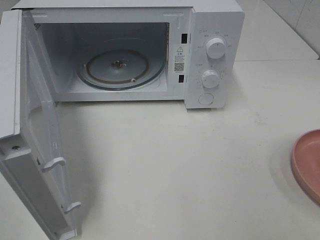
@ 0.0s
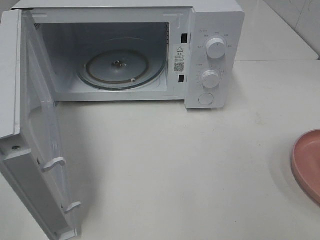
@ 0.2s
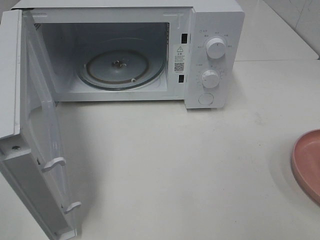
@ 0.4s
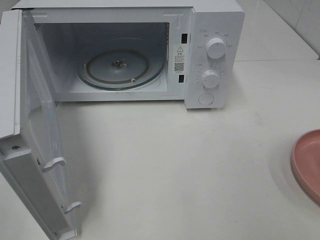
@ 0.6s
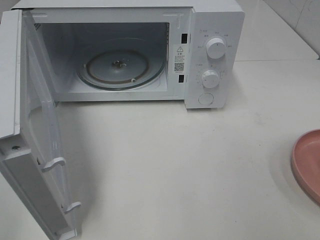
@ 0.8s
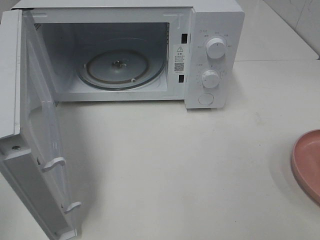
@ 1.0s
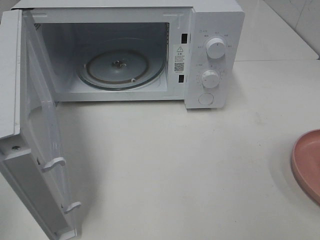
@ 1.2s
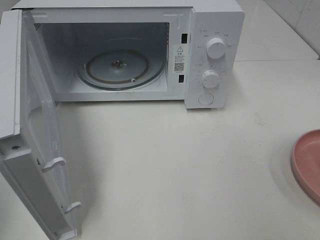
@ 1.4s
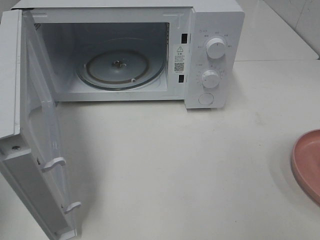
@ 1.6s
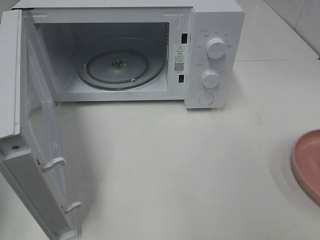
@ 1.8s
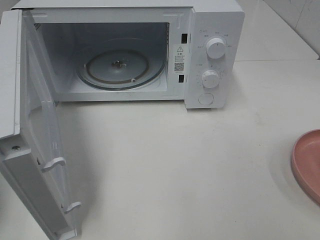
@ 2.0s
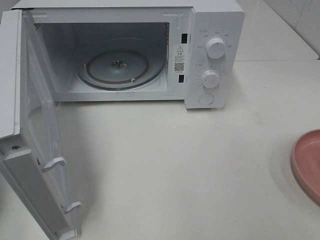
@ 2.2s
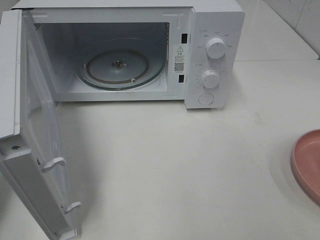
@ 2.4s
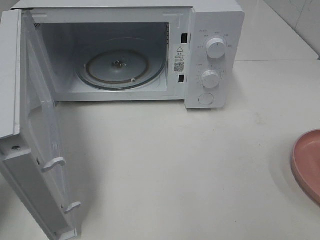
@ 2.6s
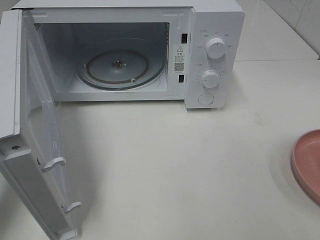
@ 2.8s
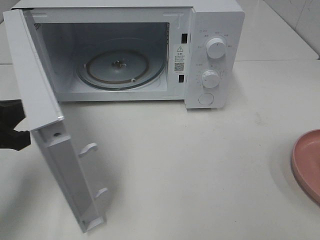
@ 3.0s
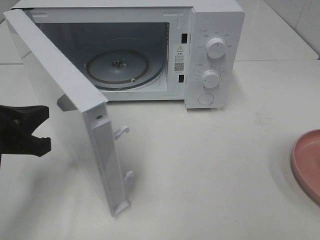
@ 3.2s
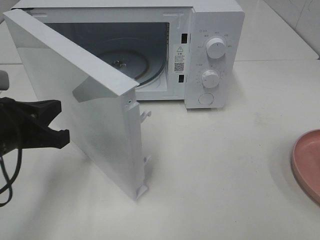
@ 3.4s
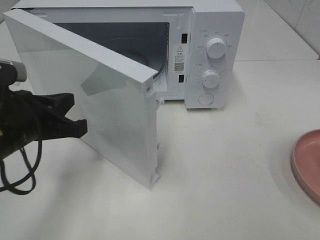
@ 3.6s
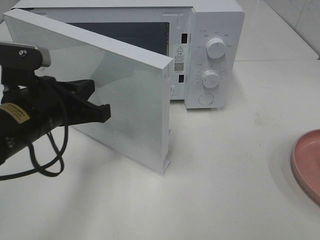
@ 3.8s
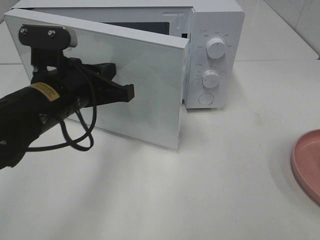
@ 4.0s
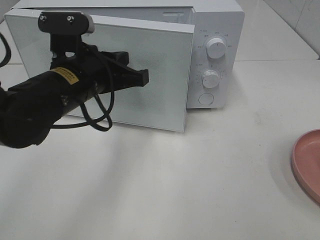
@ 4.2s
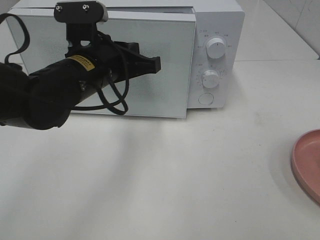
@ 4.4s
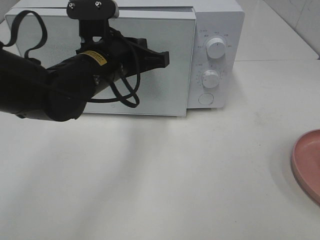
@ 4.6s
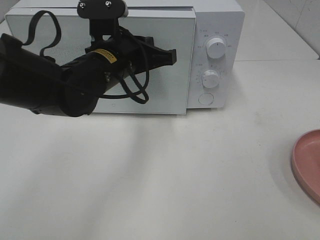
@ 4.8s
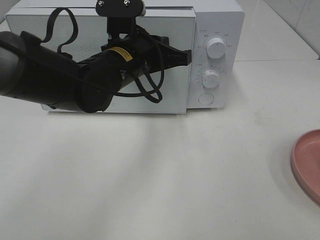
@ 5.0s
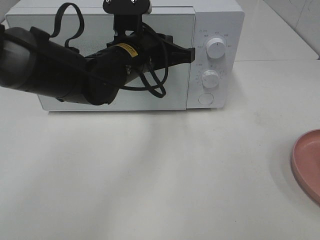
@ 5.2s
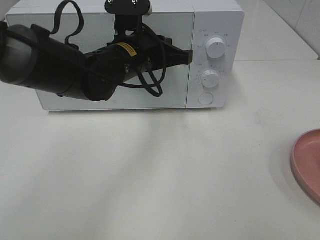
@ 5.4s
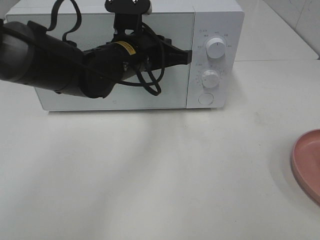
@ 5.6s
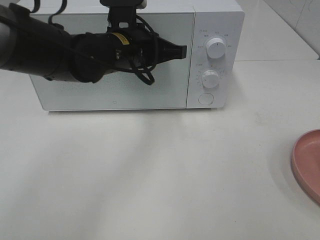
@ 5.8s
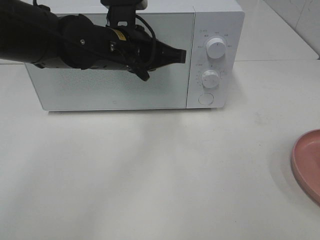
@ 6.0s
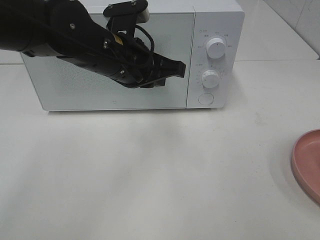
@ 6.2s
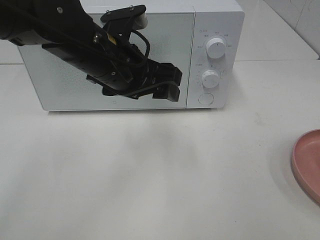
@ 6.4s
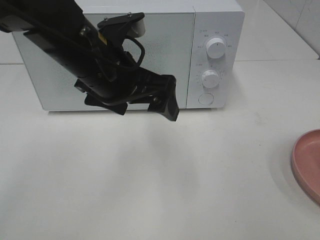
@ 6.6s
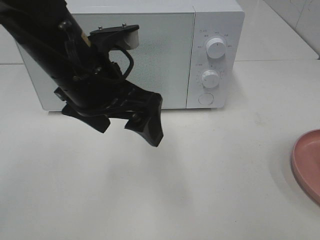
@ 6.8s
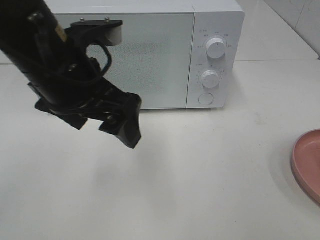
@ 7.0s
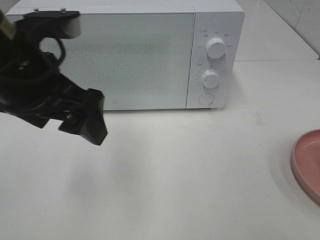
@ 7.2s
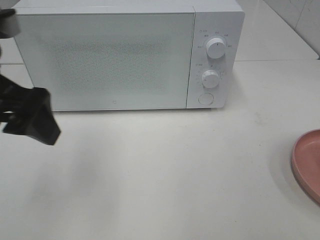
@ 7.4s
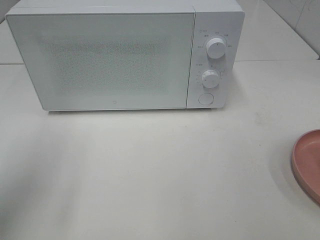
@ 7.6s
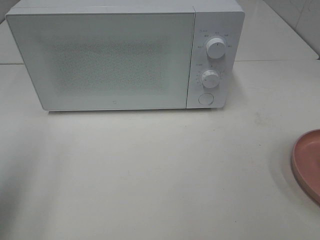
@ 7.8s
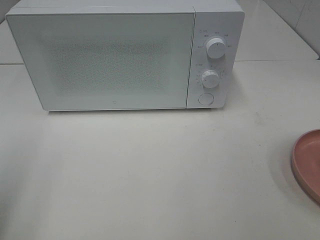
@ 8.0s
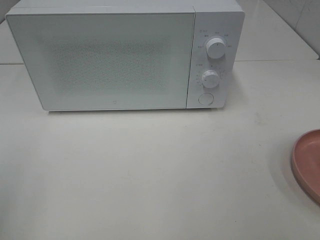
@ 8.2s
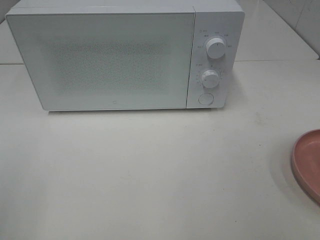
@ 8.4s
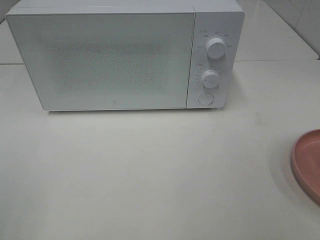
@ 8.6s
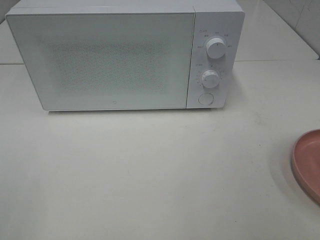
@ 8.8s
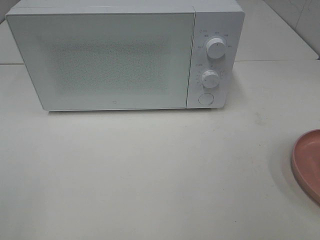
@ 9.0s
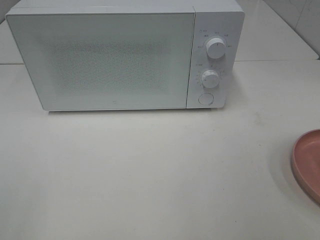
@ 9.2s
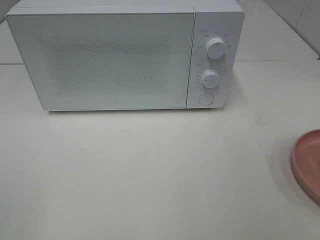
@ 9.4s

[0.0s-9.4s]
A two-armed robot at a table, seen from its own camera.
Task of the whole recording: Heat the burger.
Step, 0.0s to 5.8s: Left hand: close the microwave door.
1.6s to 3.2s: The left gripper moves downward, to the right and forward, roughly 20 cm.
3.2s to 4.8s: The left gripper is displaced to the right and forward by some 20 cm.
6.2s to 7.8s: The left gripper heads to the left and backward, covering approximately 30 cm, and opens its fingers.
7.8s to 9.4s: The left gripper goes approximately 15 cm backward.

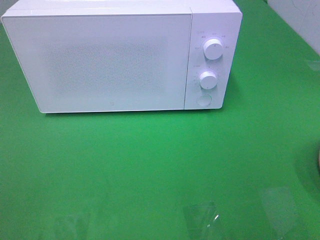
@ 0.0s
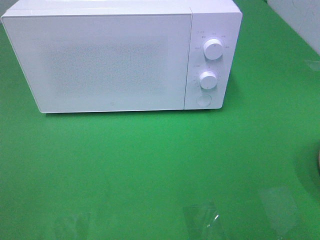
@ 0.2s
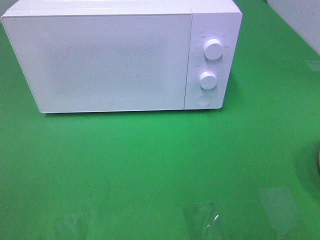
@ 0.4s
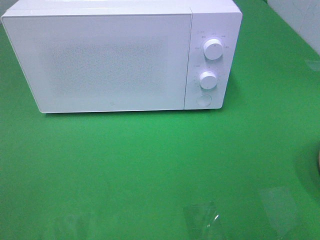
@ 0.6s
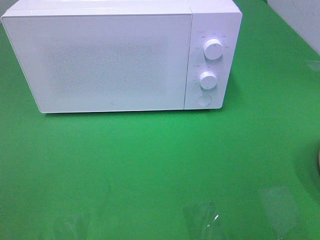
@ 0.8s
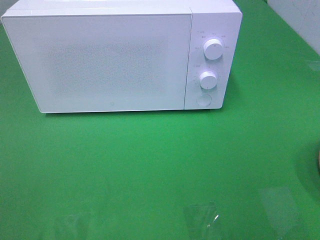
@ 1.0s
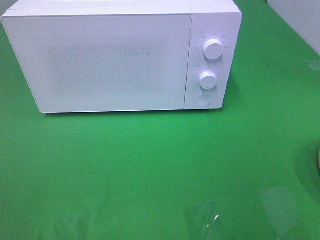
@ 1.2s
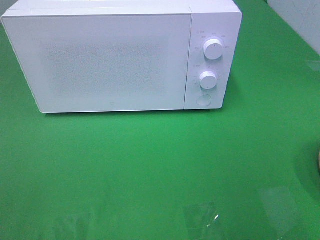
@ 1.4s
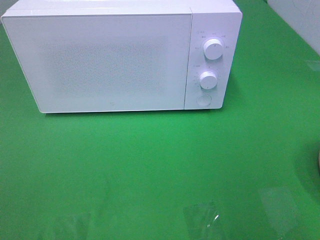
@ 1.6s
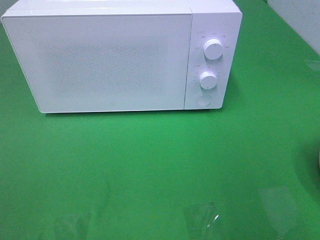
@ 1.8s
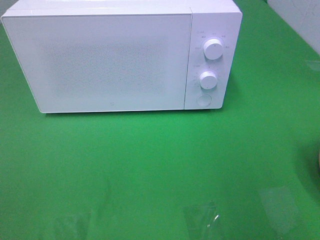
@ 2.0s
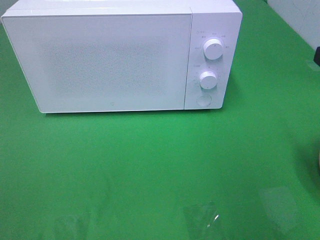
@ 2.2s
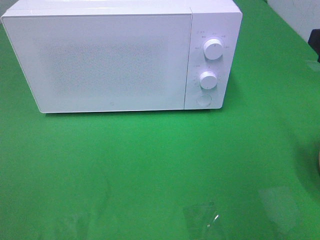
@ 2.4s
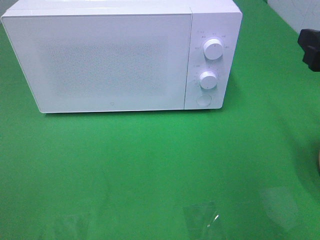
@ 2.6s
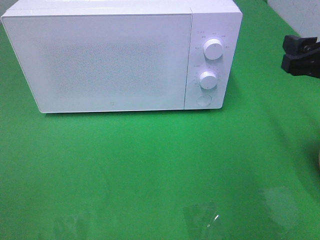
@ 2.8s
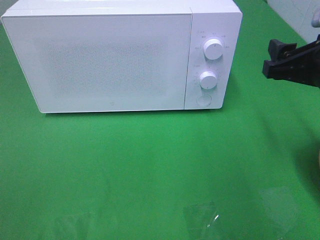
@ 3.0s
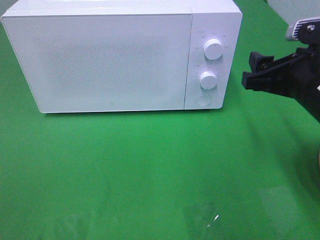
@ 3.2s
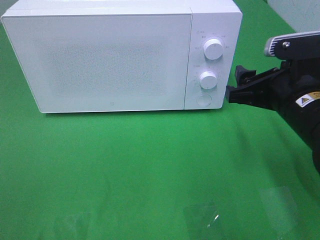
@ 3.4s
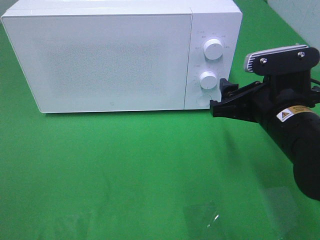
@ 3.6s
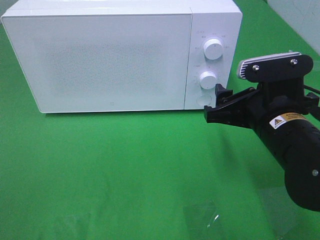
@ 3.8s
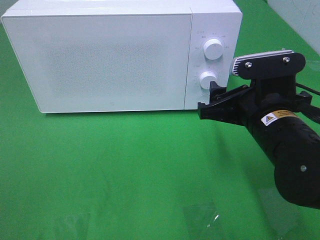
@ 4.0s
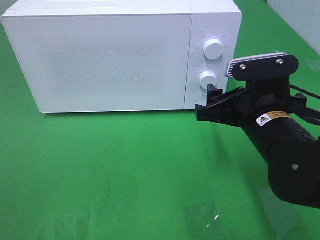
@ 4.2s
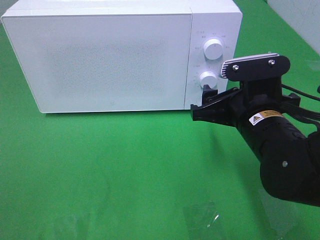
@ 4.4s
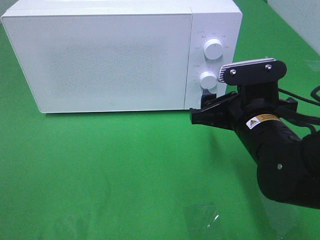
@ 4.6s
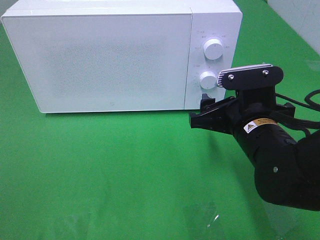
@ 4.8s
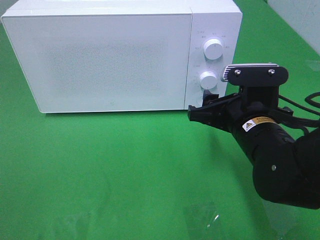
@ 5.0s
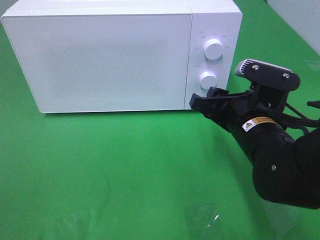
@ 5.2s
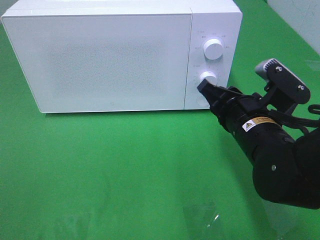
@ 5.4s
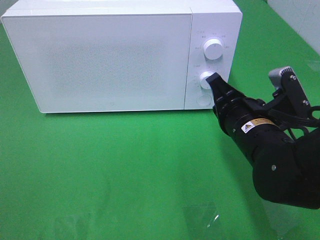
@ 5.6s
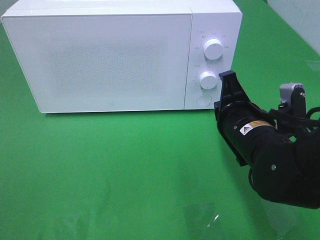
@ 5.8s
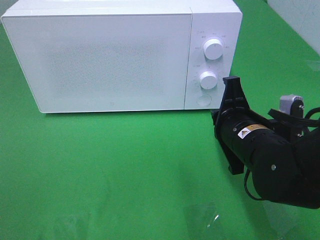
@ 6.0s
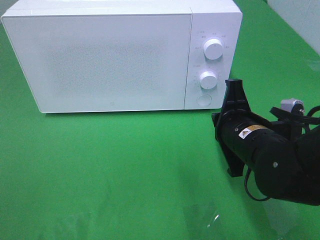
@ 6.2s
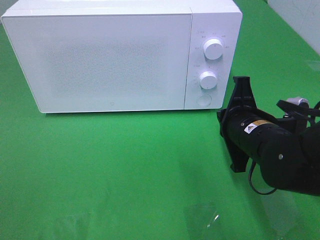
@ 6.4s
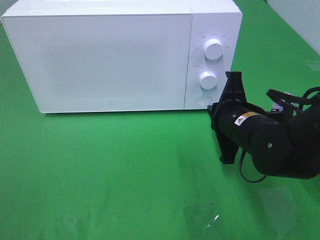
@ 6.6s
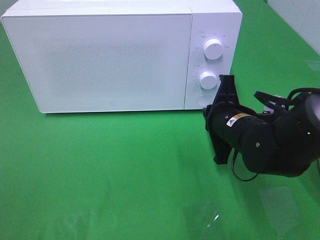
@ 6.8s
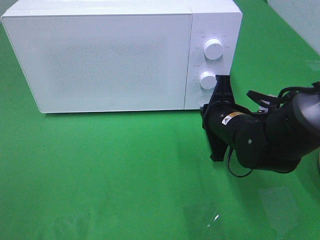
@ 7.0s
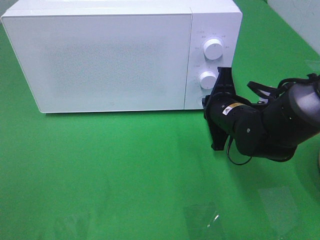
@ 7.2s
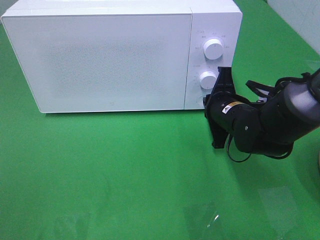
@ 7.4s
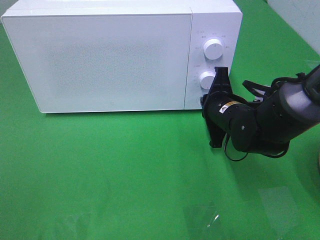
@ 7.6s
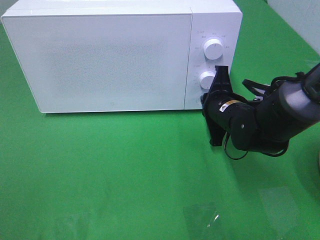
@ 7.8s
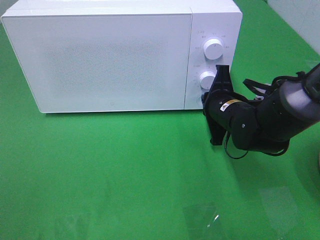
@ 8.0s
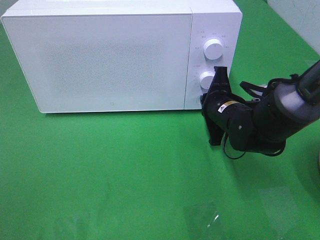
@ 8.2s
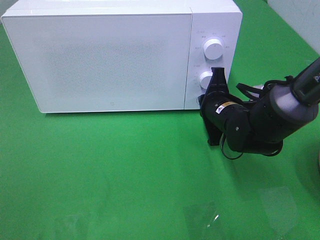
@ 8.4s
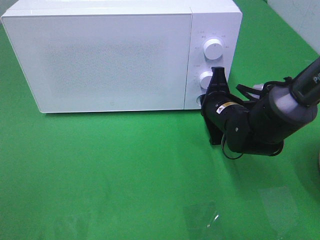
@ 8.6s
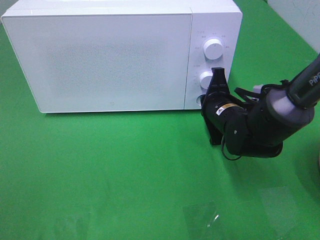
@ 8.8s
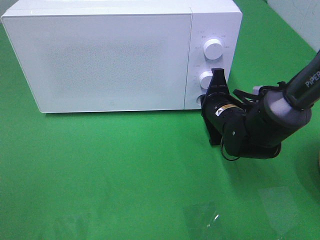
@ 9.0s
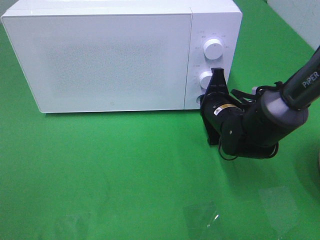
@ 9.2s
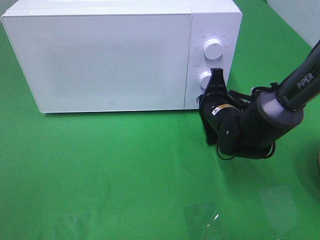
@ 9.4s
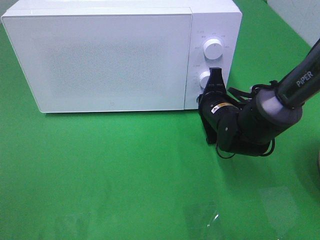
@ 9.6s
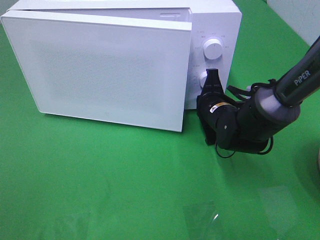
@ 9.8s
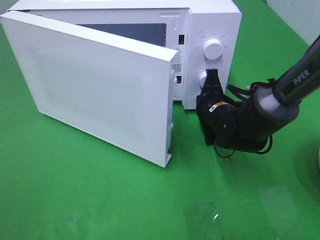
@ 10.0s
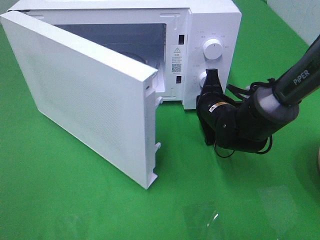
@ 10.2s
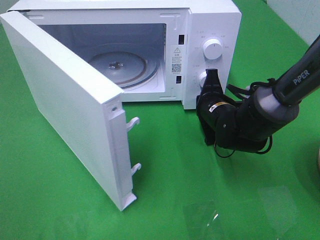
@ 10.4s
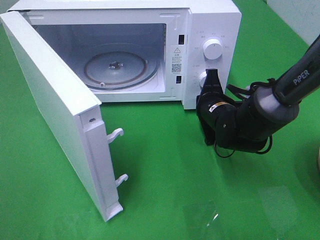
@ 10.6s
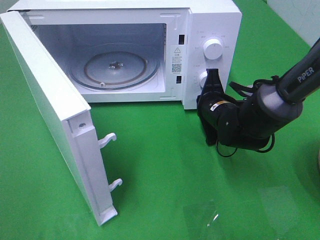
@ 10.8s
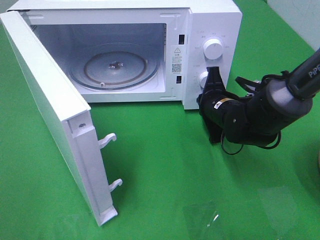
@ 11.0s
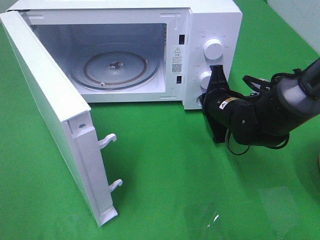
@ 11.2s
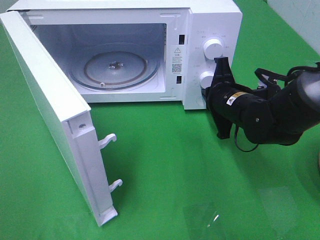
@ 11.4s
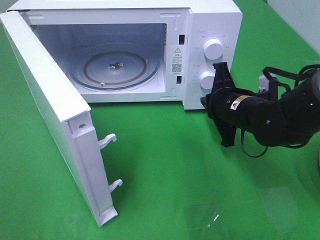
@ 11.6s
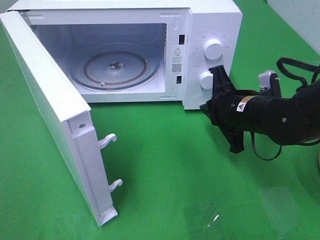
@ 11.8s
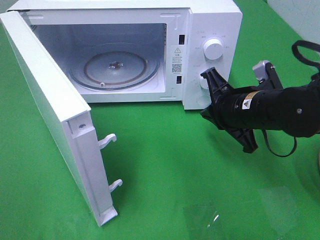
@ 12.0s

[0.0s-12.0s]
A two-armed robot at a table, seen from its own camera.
Task of the whole recording: Heat the burger.
Step, 0.0s to 11.4s: Right hand: press the switch.
1.6s to 3.0s: The right gripper heads forward and downward, covering about 15 cm.
3.0s to 4.4s: The right gripper travels to the left and downward by approximately 10 cm.
4.4s to 6.0s: The right gripper closes up.
6.0s to 7.6s: The right gripper moves forward, approximately 10 cm.
7.6s to 9.0s: The grippers move only a little.
10.4s to 12.0s: The right gripper travels backward and upward by roughly 10 cm.

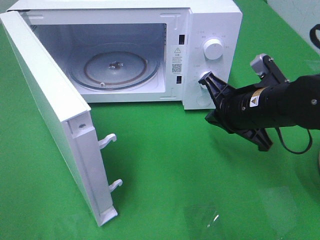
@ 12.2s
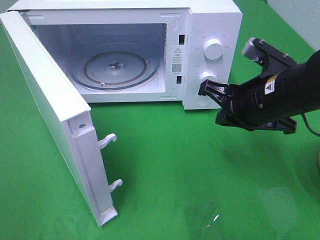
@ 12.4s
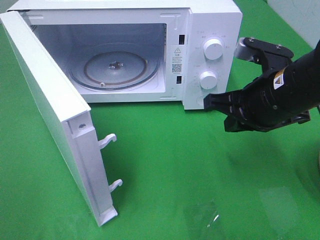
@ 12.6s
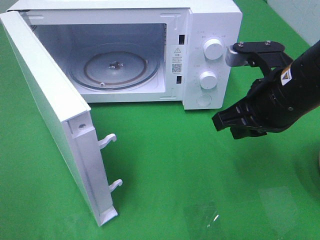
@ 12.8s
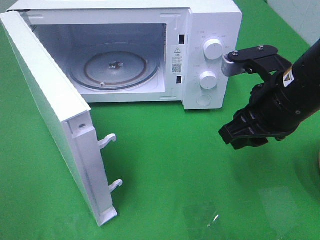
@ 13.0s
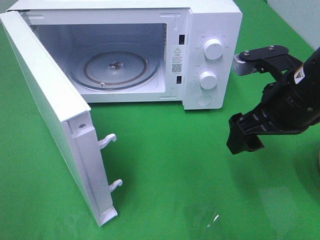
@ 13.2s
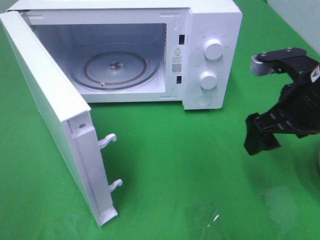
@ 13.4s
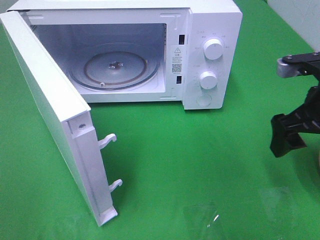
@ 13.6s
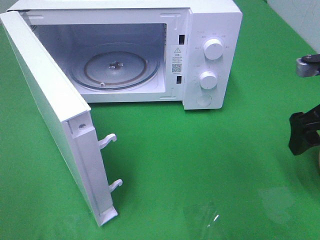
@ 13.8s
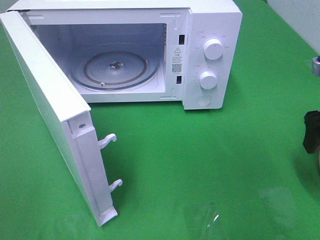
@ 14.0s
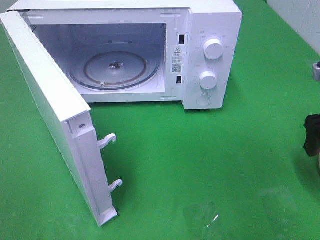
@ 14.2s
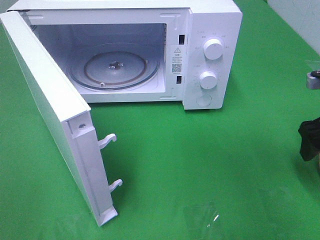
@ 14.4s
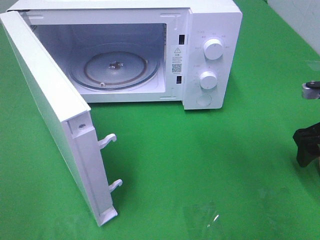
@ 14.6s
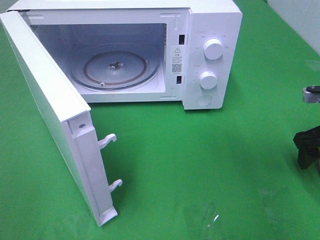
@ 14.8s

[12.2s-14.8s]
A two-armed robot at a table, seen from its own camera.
Task of the whole recording: Heat the burger.
12.2s to 13.4s: The right gripper moves to the right and upward, some 10 cm, and opens.
13.4s to 14.8s: The right gripper is displaced to the right and downward by about 15 cm.
